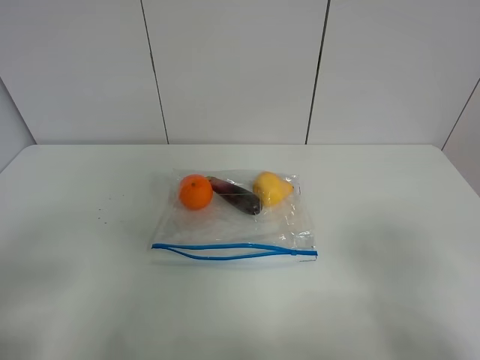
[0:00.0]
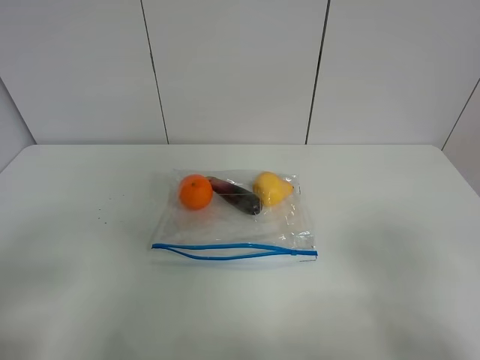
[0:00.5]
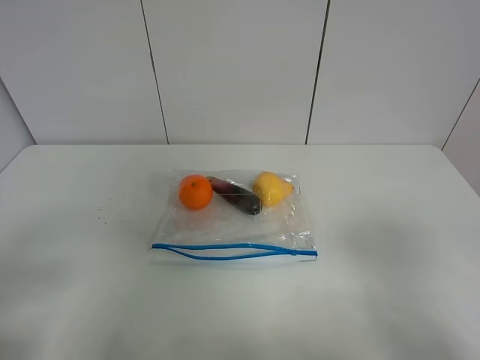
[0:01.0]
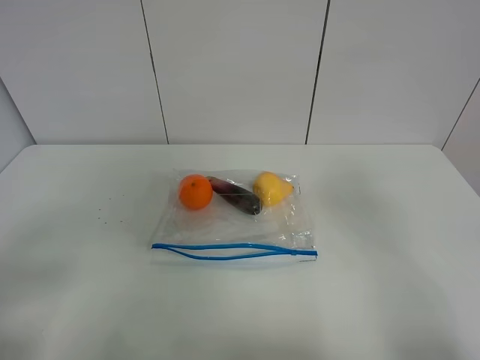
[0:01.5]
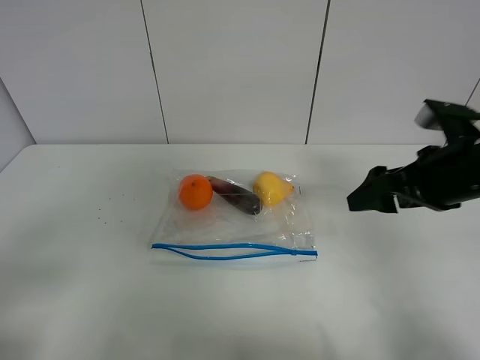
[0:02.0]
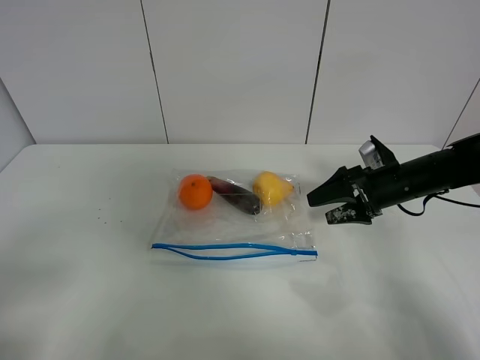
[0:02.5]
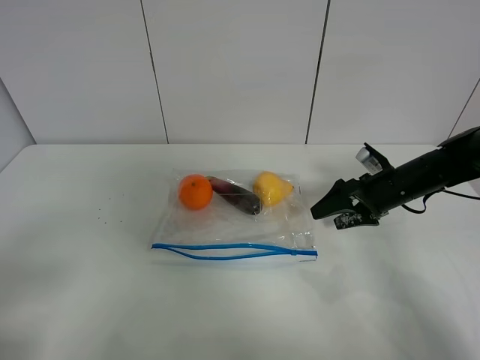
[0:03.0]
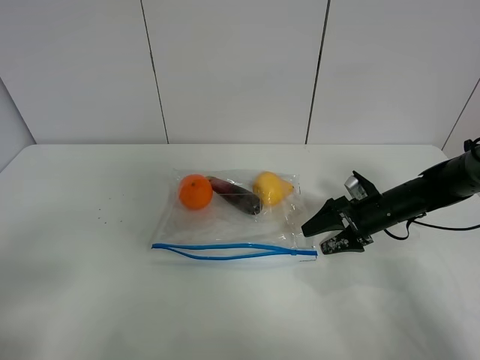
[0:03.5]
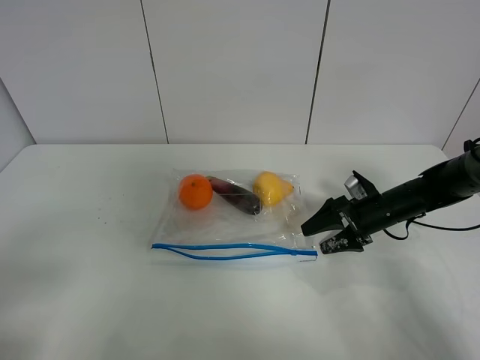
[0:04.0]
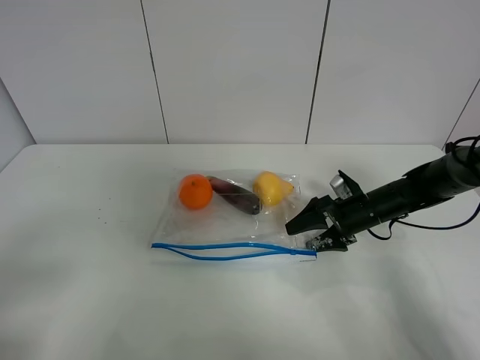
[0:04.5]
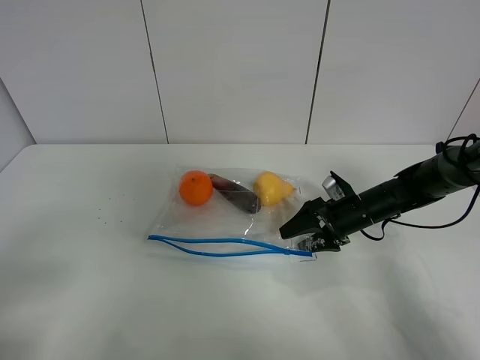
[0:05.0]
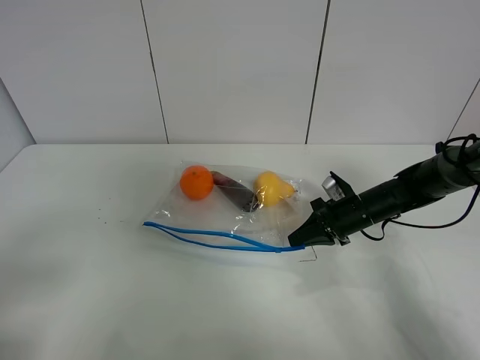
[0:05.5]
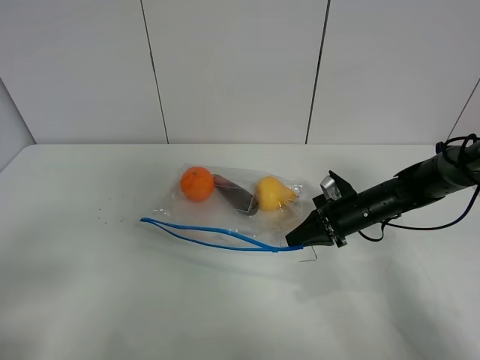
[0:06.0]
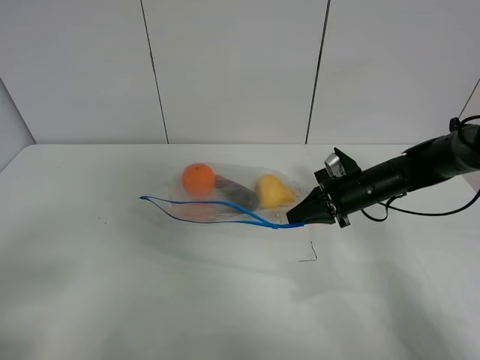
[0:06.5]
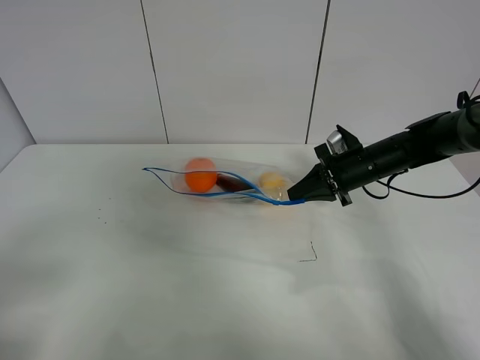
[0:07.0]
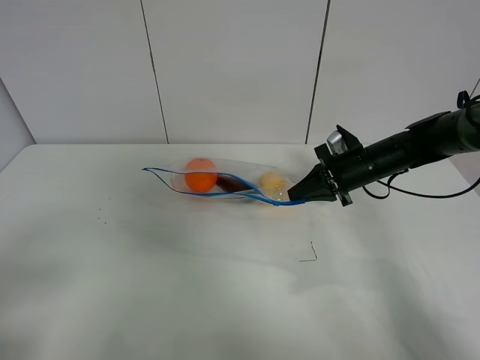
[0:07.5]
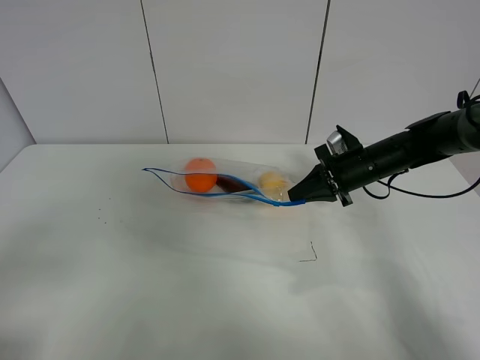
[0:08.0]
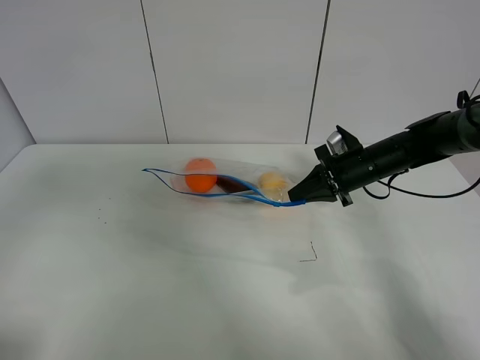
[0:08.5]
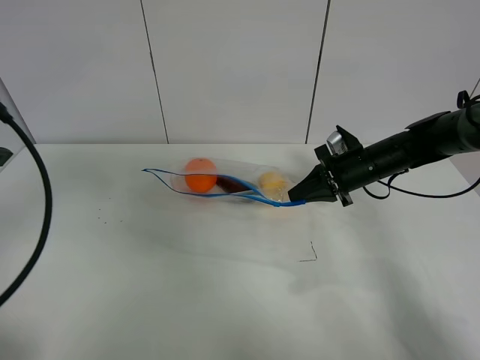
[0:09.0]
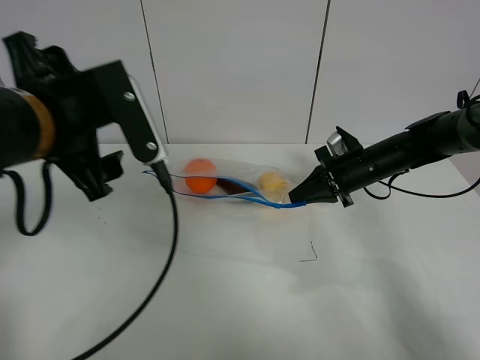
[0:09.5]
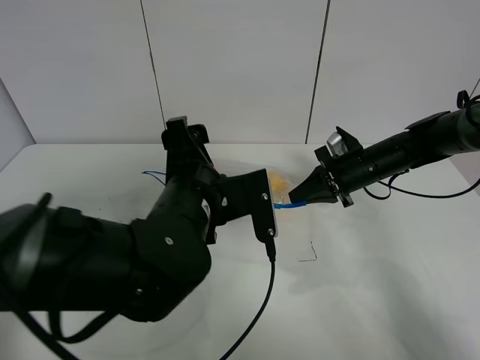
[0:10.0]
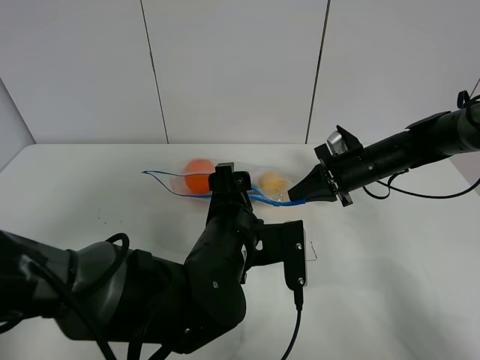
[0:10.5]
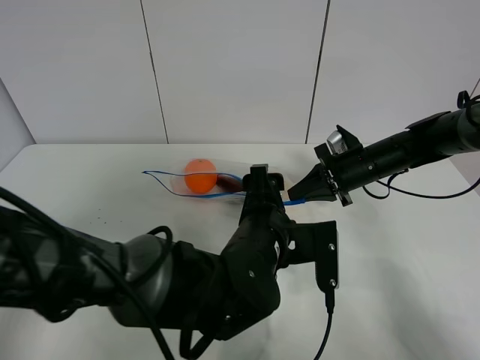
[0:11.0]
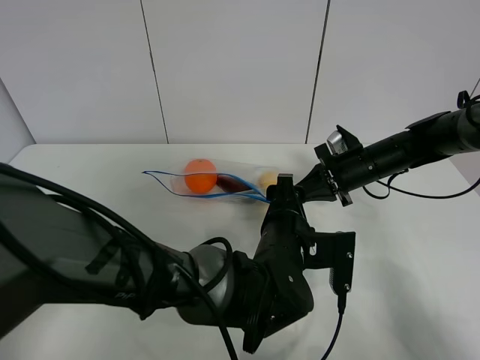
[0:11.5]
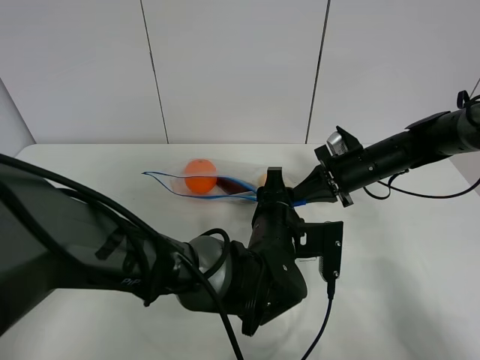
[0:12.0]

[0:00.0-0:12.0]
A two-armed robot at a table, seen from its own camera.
Step, 0:00.0 to 0:05.5: Grasp the fruit bag with right gripper.
Step, 0:06.0 to 0:07.0: Lift the fruit bag with your right gripper.
0:00.0 to 0:02.0: The right gripper is displaced forward by some 25 cm.
0:02.0 to 0:04.0: The right gripper goes roughly 20 cm downward and forward.
0:04.0 to 0:06.0: The right gripper closes up.
0:06.0 to 0:08.0: The right gripper shifts about 5 cm upward.
0:08.0 to 0:10.0: The left gripper moves to the right, forward and downward, approximately 35 cm.
0:10.0 to 0:12.0: The left gripper shifts approximately 10 cm to the right and downward, and closes.

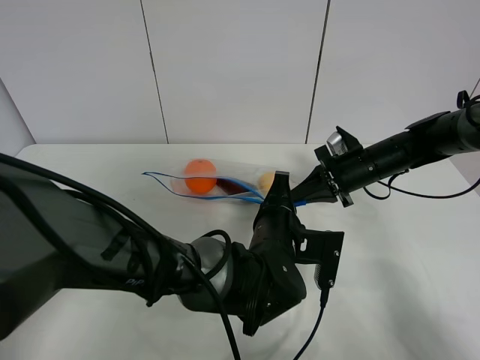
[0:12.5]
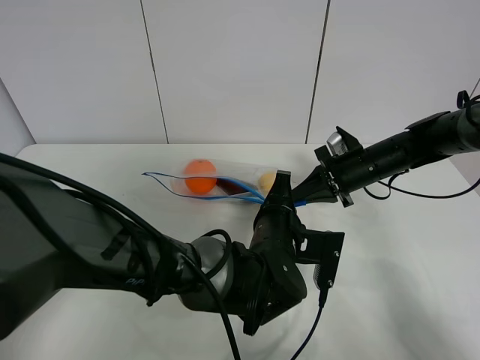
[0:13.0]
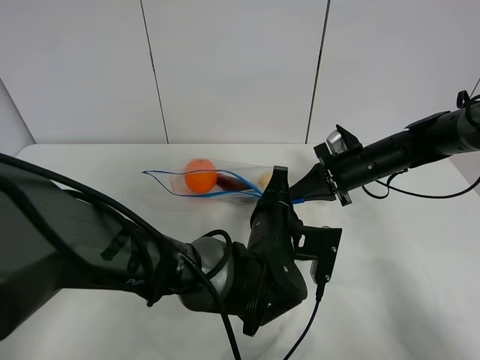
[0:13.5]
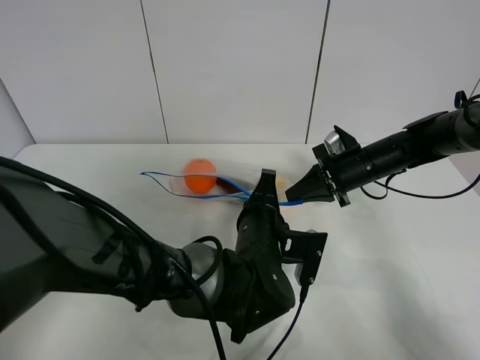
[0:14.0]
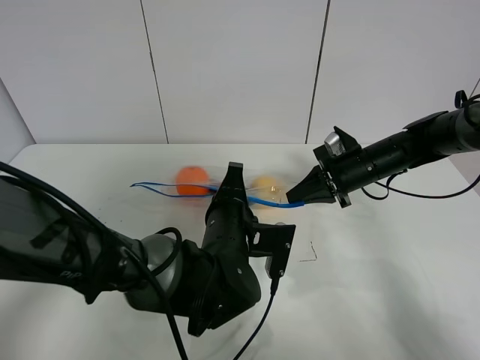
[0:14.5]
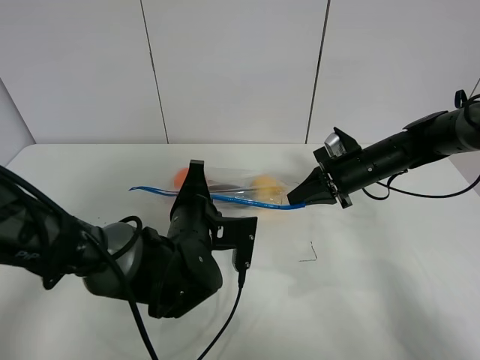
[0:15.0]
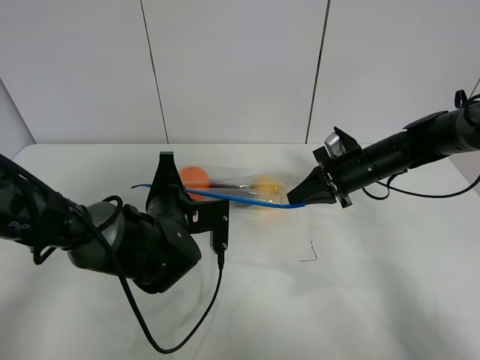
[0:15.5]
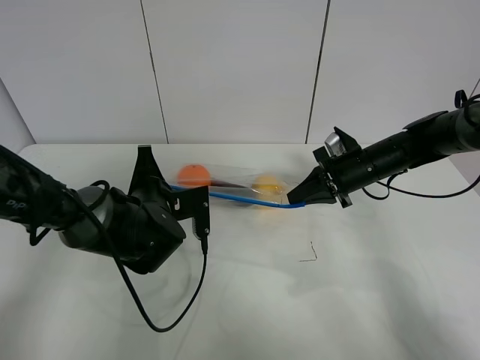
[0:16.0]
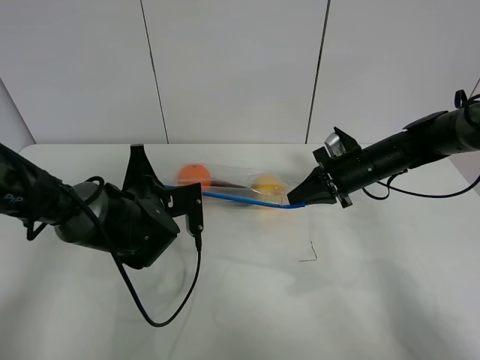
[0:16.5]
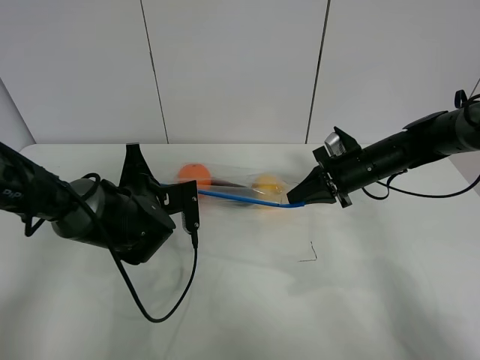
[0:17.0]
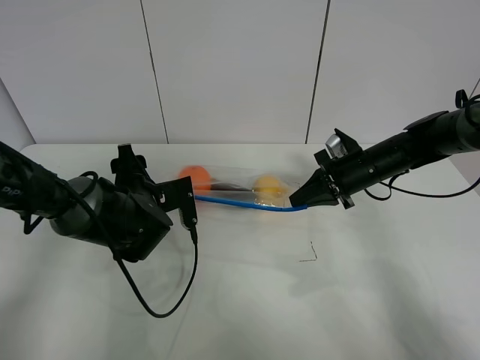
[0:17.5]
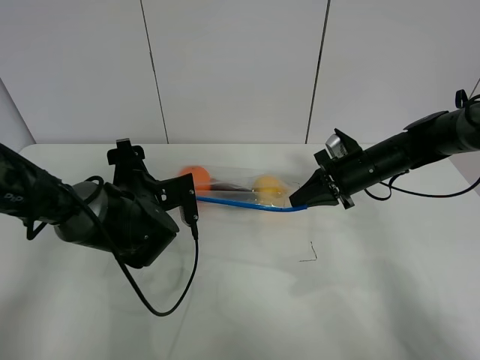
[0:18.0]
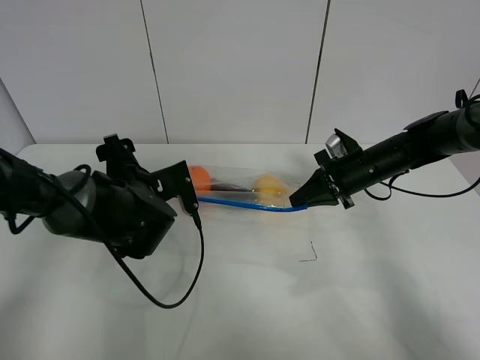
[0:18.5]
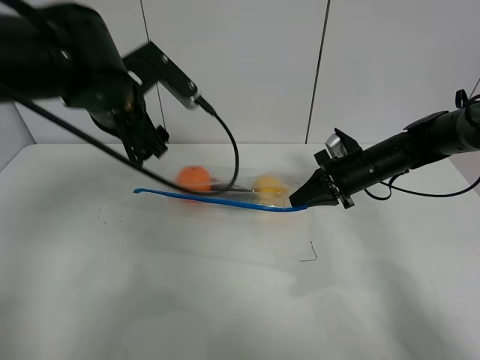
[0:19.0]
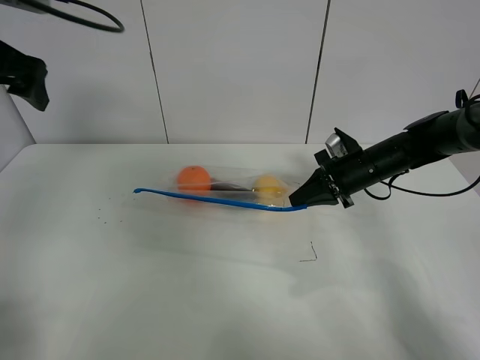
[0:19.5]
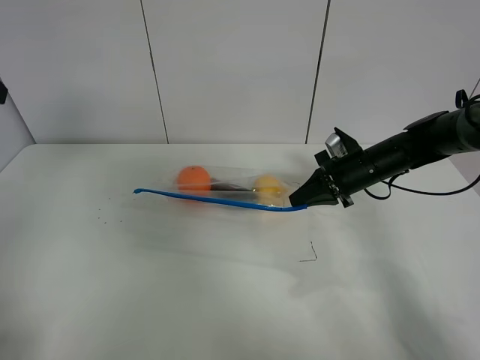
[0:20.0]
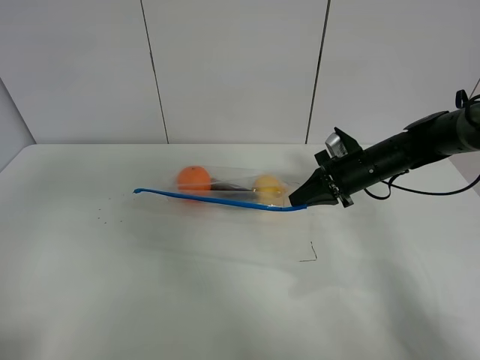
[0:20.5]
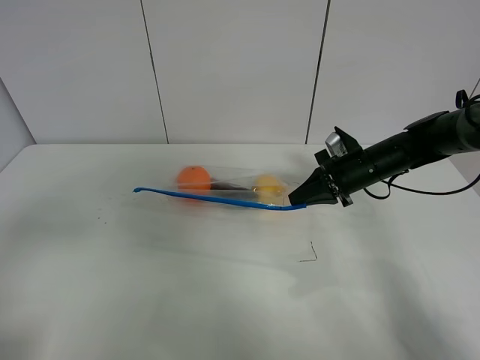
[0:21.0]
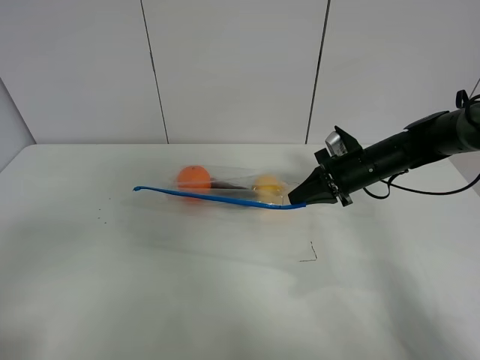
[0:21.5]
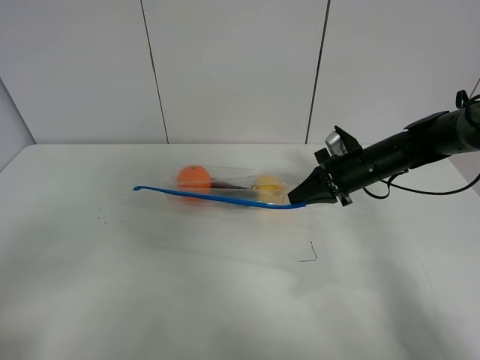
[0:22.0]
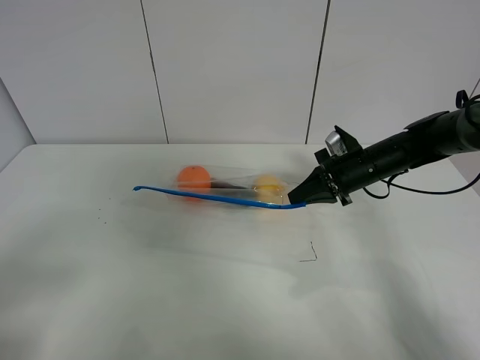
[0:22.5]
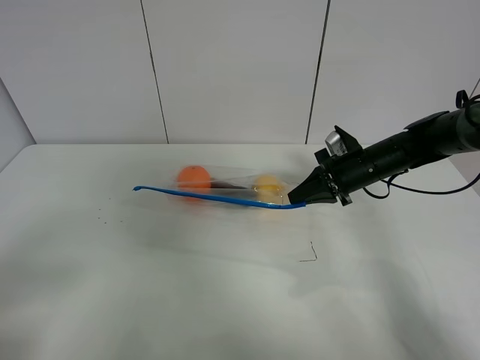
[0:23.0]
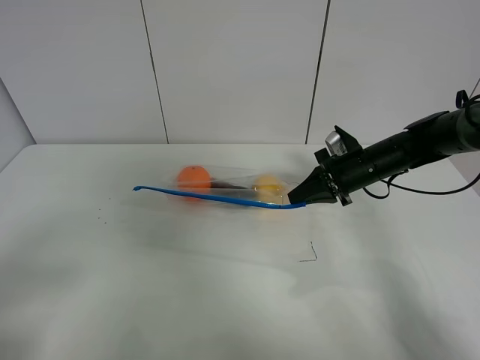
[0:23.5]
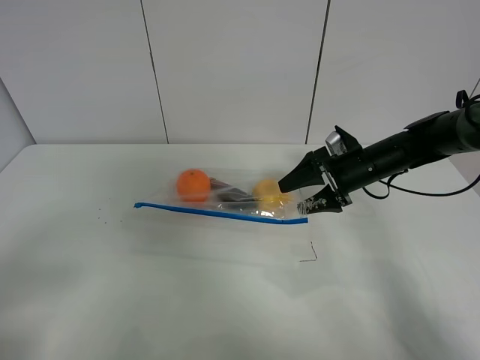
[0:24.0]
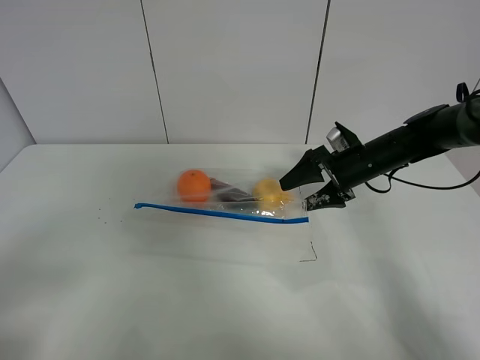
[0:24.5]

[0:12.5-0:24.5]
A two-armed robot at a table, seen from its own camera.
Step, 0:12.5 to 0:17.5: Pull the fruit bag with left gripper.
0:12.5 to 0:14.5: The left gripper is displaced to the left by about 5 cm.
0:14.5 to 0:16.5: The left gripper goes approximately 15 cm to the left and forward.
0:16.5 to 0:18.5: The left gripper opens.
0:18.5 to 0:20.5: The left gripper shifts about 35 cm upward, to the left and backward.
0:20.5 to 0:22.5: The left gripper heads backward and downward, covering about 15 cm.
0:22.5 to 0:24.5: The right gripper opens.

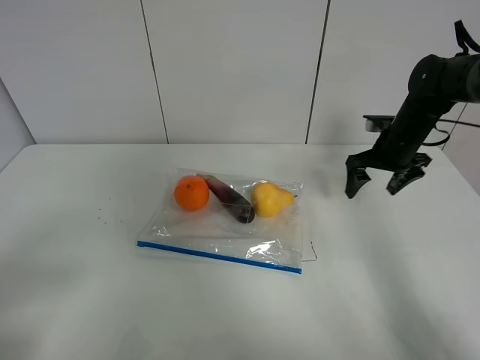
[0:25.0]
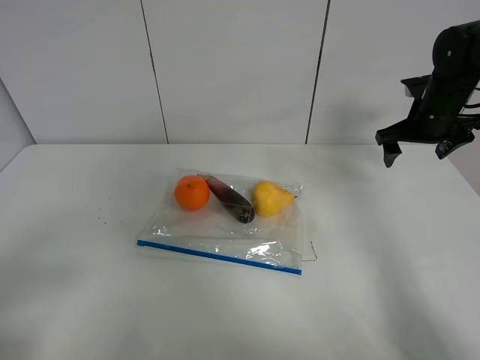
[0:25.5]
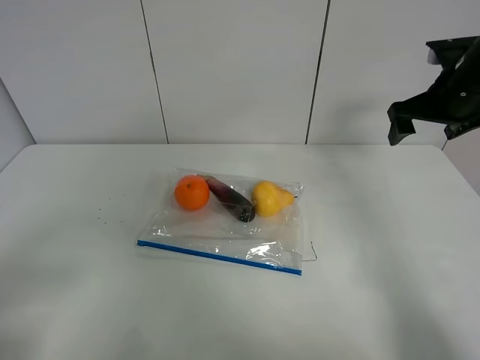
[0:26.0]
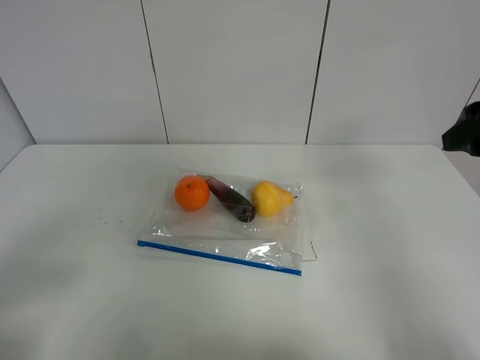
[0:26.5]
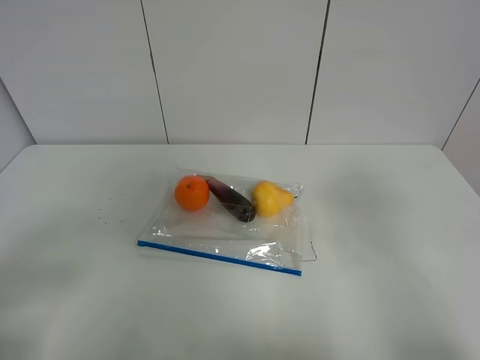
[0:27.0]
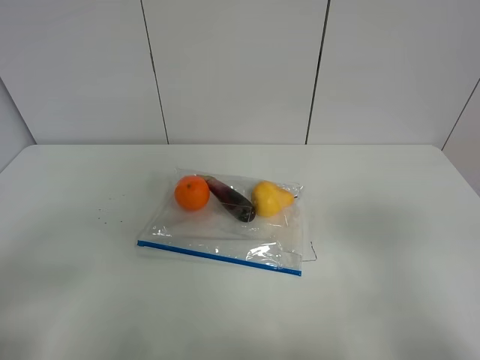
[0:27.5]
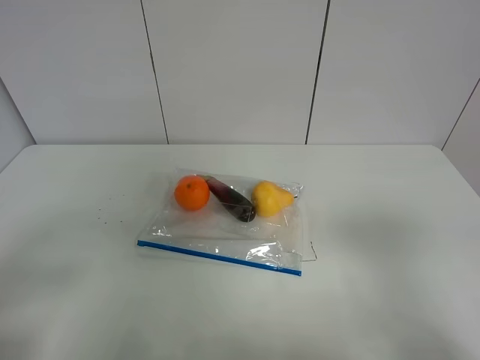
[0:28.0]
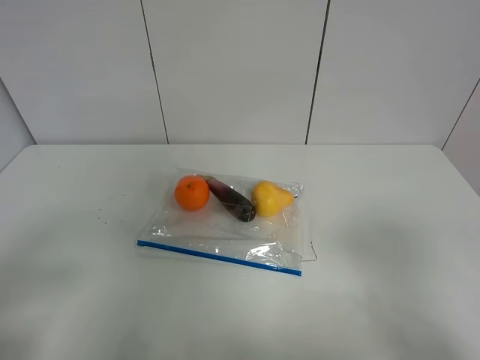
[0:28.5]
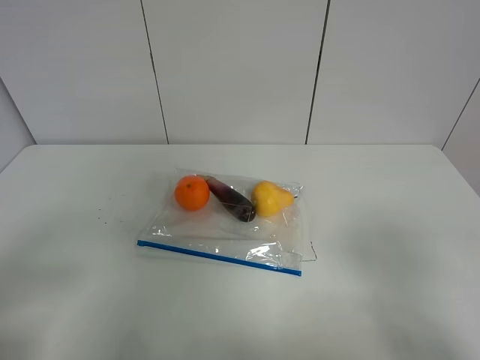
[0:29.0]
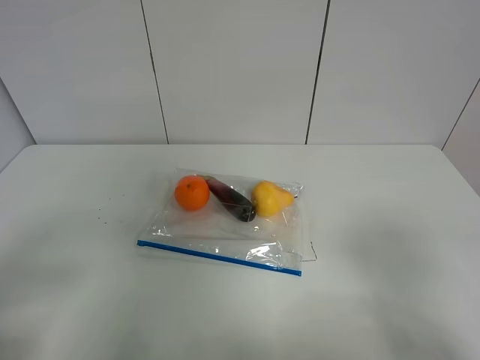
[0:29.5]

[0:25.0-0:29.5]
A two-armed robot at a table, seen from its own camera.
0:25.0 to 0:27.0: The right gripper is displaced backward and upward by approximately 40 cm.
